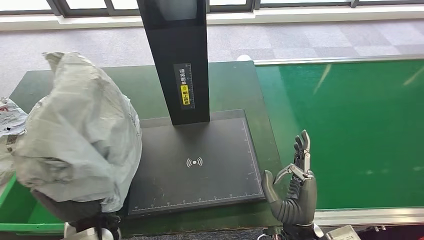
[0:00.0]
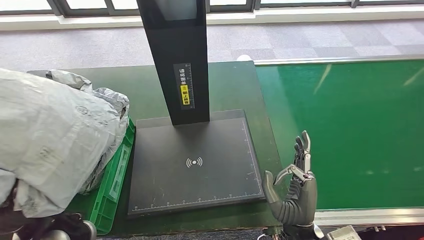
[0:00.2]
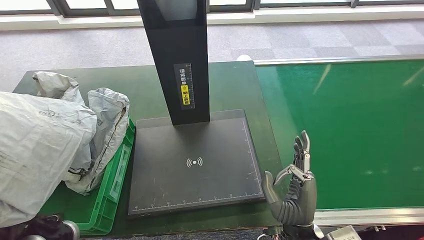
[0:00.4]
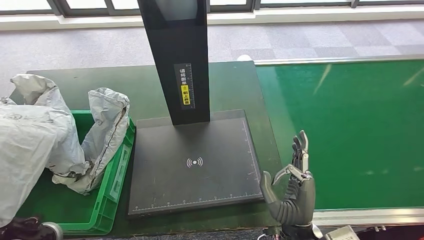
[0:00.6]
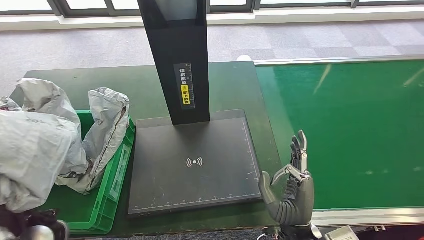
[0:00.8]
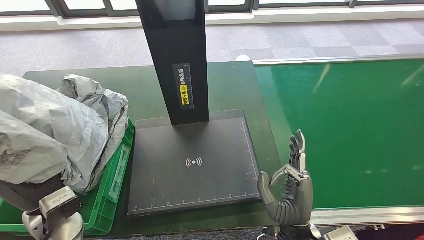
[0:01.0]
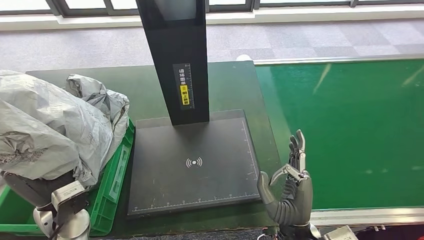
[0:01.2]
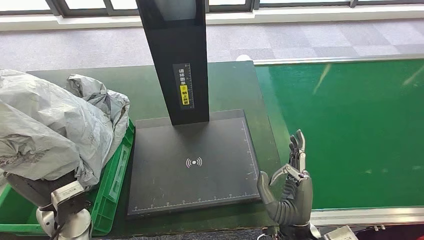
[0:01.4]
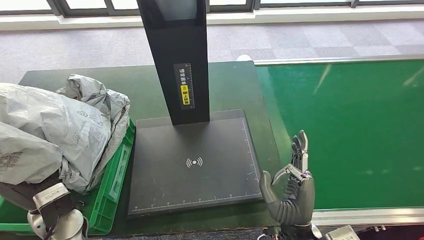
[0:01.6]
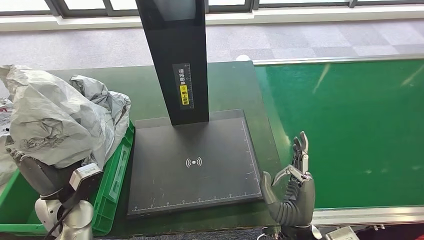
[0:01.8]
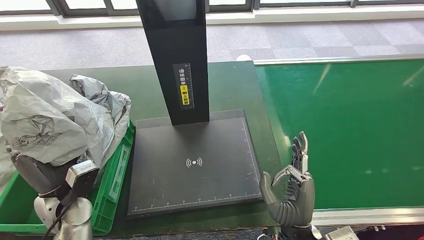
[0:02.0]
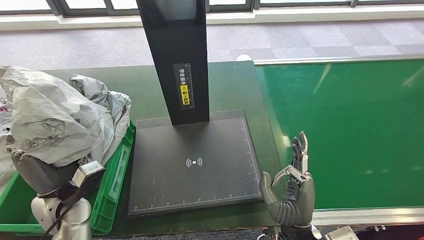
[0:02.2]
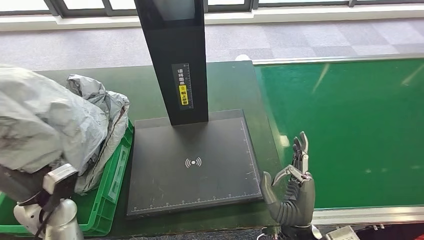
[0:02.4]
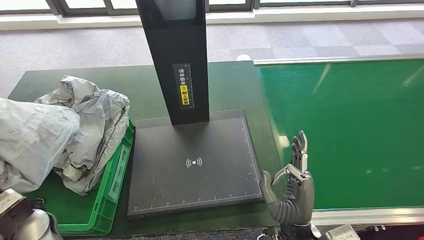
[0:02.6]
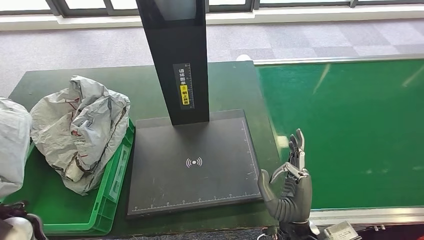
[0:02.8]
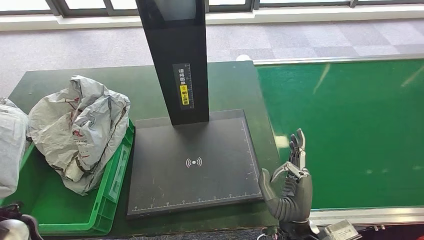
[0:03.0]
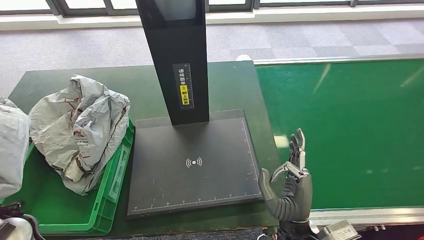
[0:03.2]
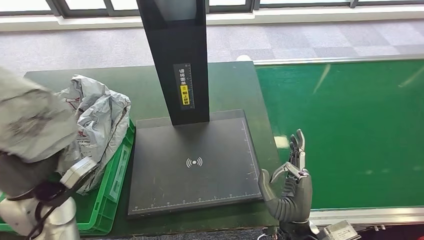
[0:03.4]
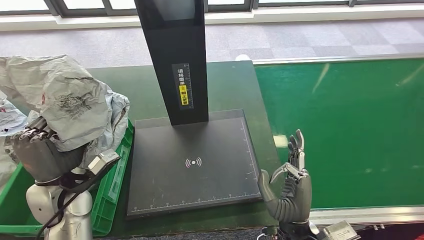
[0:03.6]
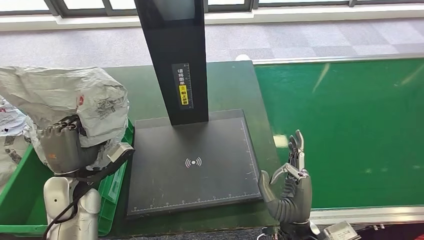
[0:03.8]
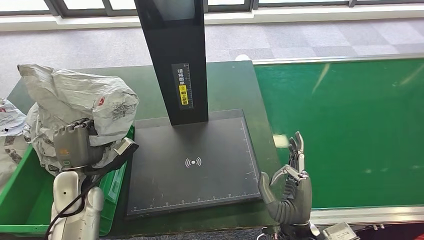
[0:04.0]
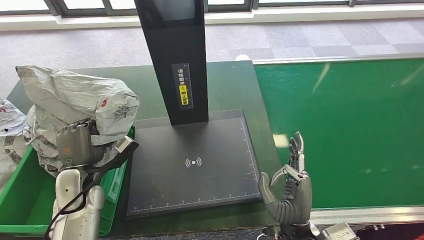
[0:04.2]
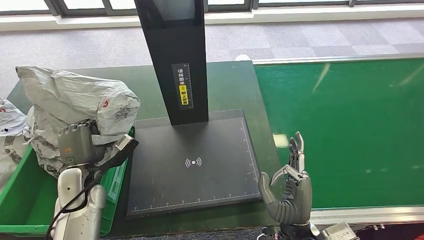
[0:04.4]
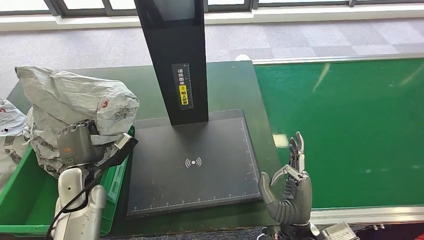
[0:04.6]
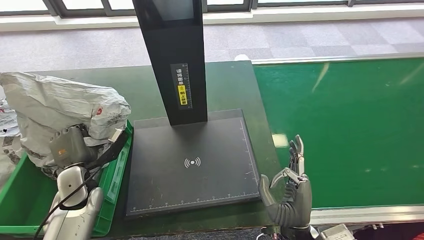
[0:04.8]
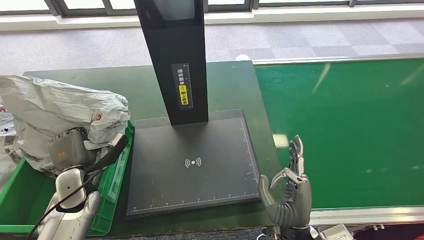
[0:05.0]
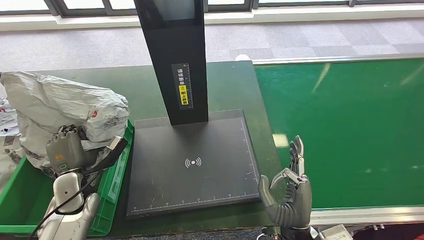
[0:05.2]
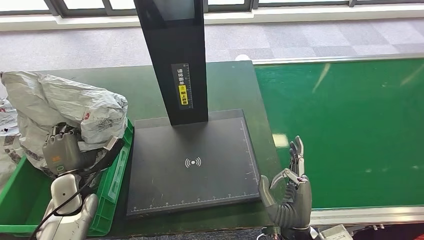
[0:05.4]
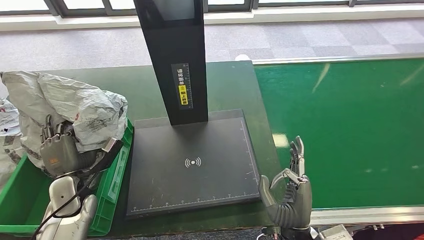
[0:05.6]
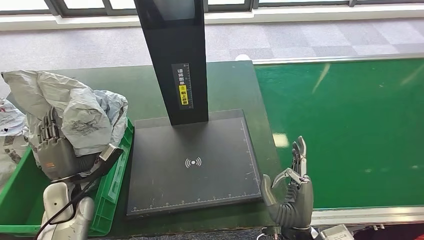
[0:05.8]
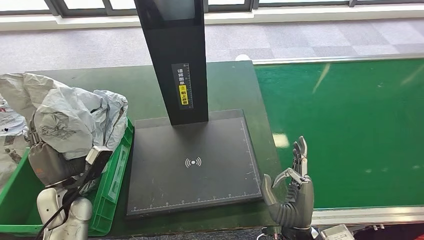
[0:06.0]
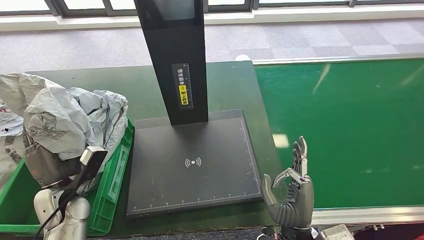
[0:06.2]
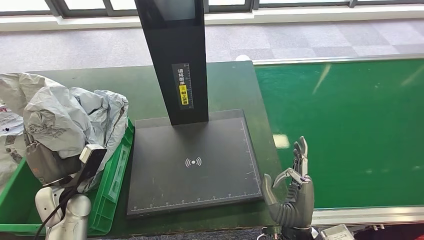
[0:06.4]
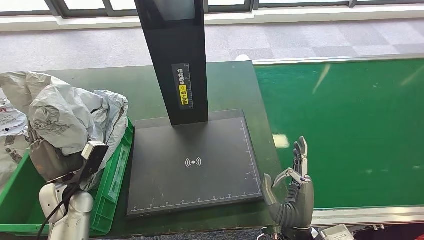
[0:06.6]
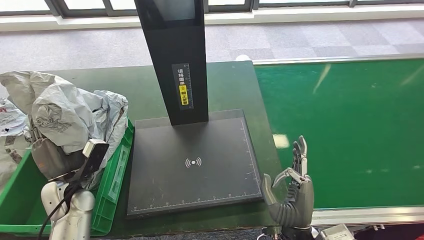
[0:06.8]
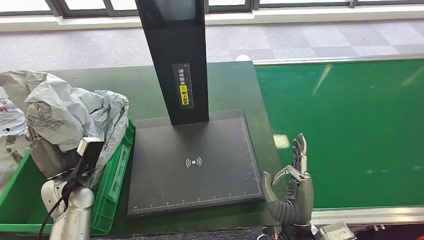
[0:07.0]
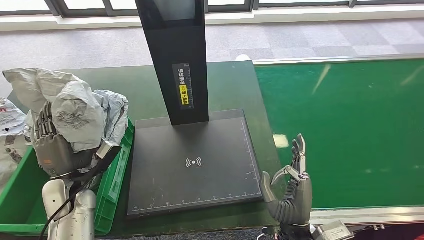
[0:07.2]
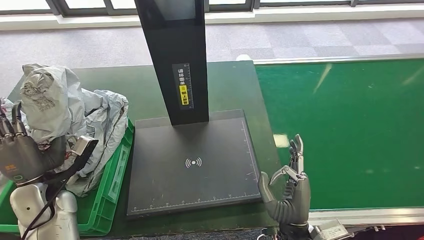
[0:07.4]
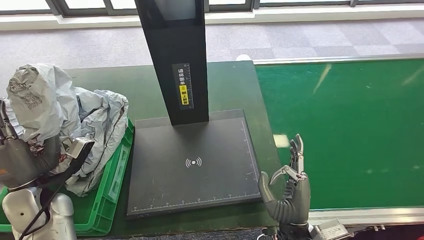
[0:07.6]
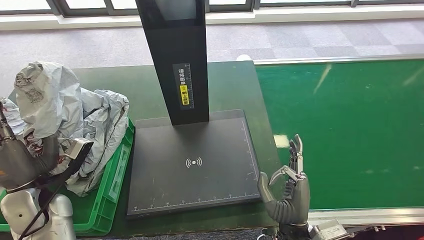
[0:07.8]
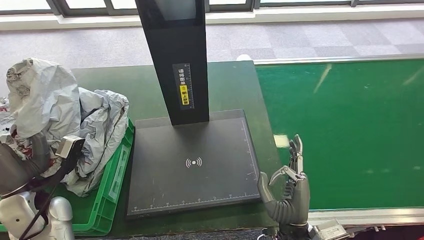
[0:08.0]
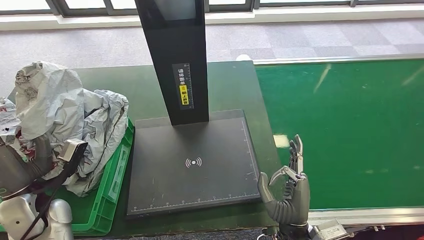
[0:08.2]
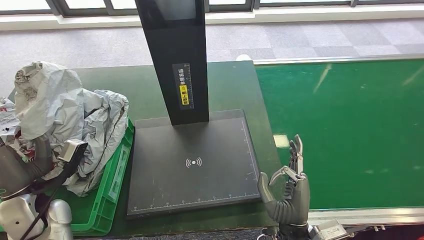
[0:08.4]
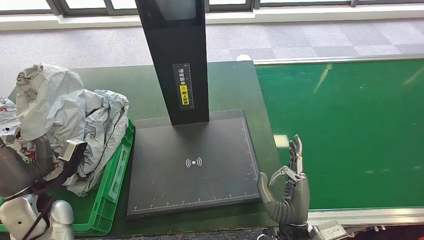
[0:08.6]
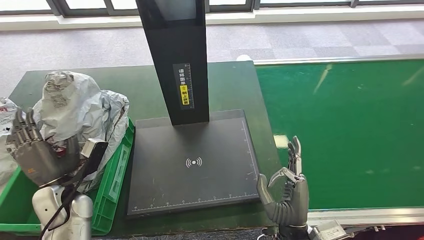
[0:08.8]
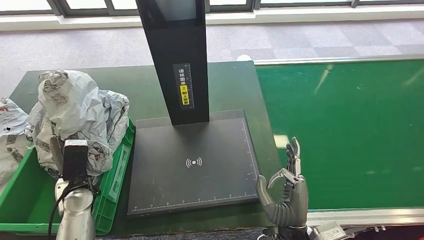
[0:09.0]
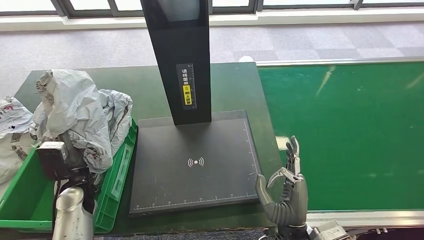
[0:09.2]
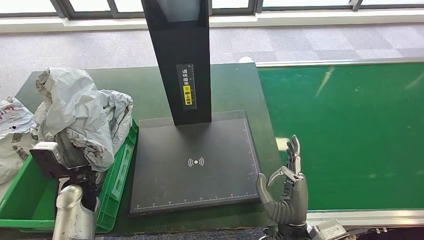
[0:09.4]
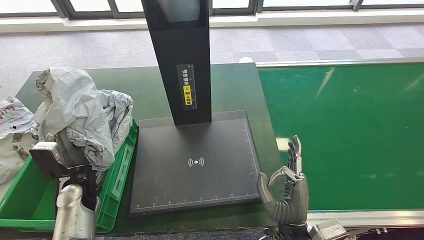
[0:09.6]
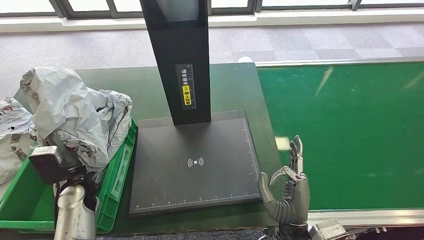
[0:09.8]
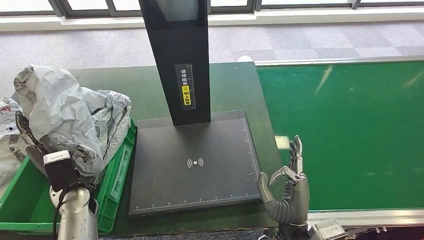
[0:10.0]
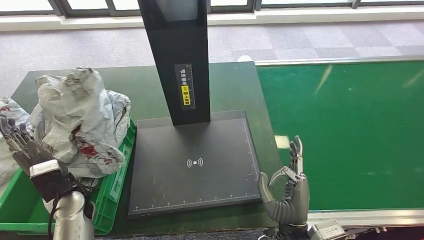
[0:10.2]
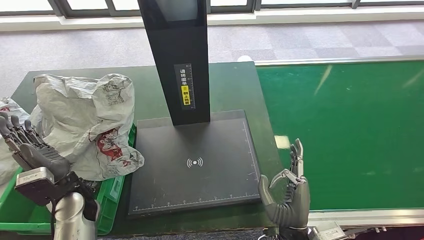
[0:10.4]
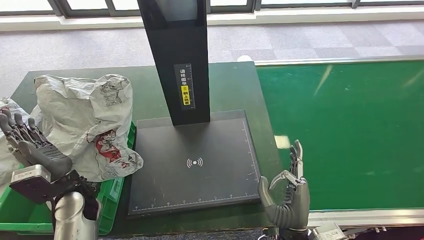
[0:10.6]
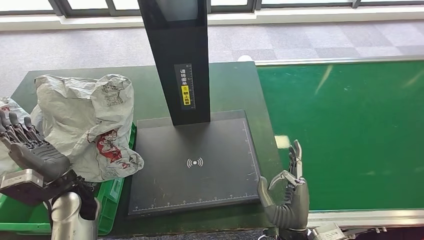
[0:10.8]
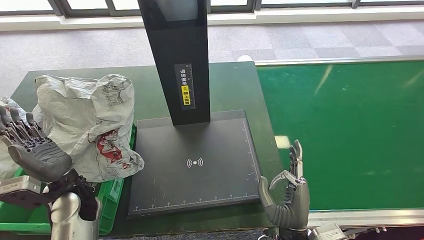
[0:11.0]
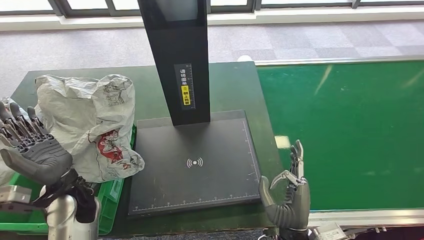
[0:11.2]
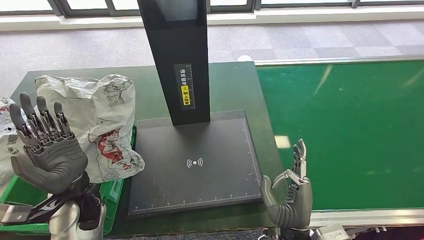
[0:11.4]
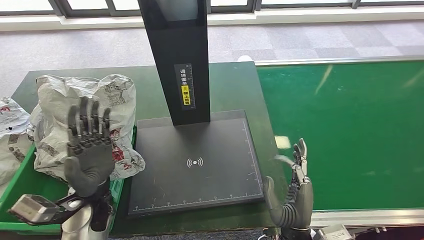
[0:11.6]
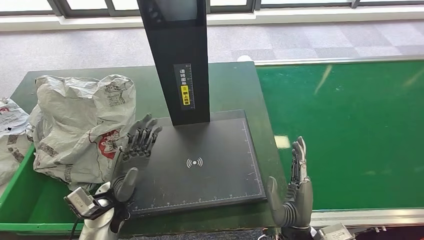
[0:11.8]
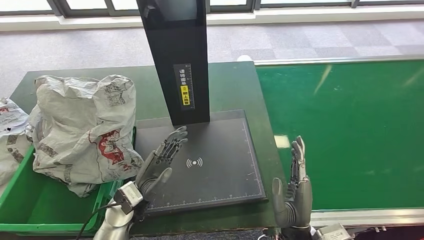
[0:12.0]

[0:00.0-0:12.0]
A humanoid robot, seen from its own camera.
Step, 0:00.8 to 0:12.0: Place the parcel into the delivery box.
0:00.0 to 0:01.6: The left hand moves to the left, roughly 10 cm.
0:01.6 to 0:03.0: The left hand moves upward, approximately 10 cm.
0:03.0 to 0:04.4: The left hand goes roughly 15 cm downward and forward.
0:04.4 to 0:06.0: The left hand ends up roughly 5 cm from where it was.
0:06.0 to 0:07.6: The left hand moves upward, approximately 5 cm.
0:07.6 to 0:09.0: The left hand moves downward, about 5 cm.
0:10.4 to 0:12.0: The left hand goes roughly 10 cm to the right.
